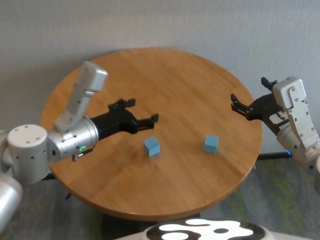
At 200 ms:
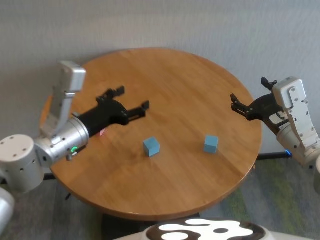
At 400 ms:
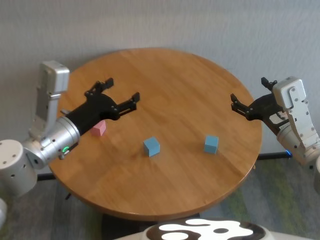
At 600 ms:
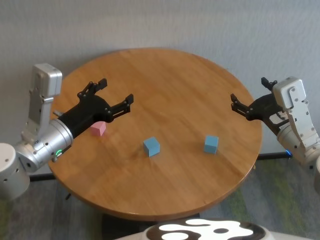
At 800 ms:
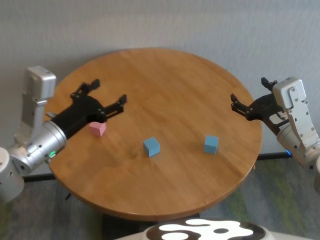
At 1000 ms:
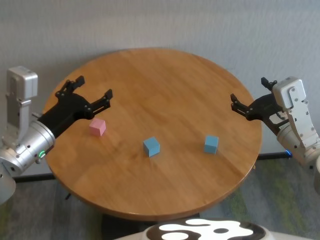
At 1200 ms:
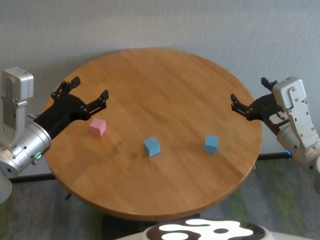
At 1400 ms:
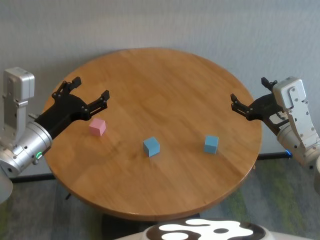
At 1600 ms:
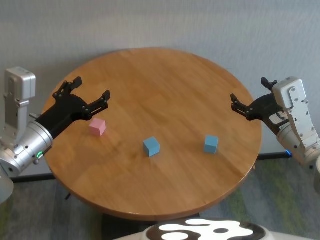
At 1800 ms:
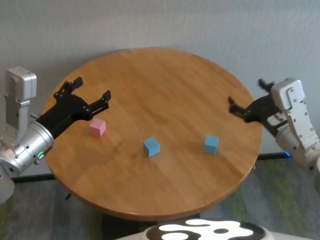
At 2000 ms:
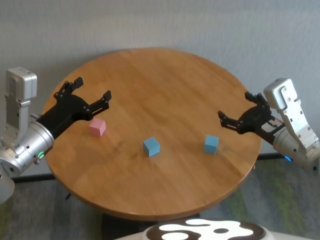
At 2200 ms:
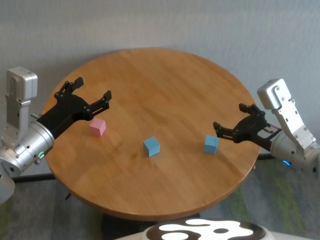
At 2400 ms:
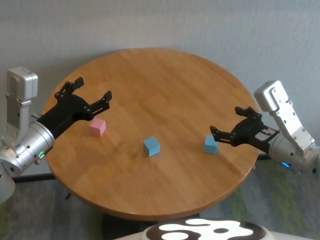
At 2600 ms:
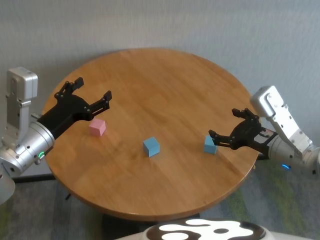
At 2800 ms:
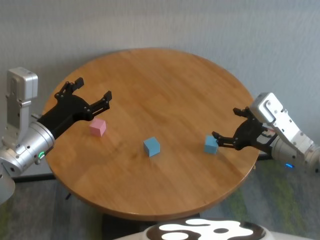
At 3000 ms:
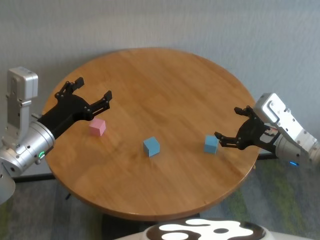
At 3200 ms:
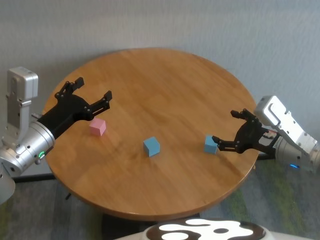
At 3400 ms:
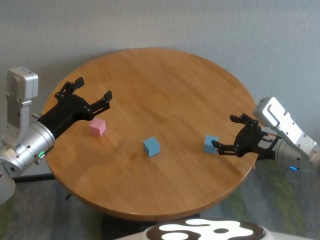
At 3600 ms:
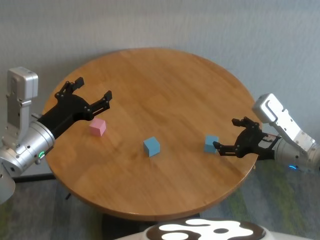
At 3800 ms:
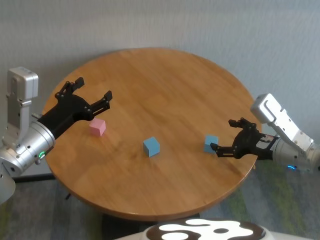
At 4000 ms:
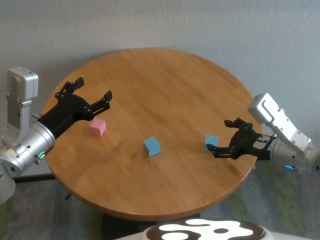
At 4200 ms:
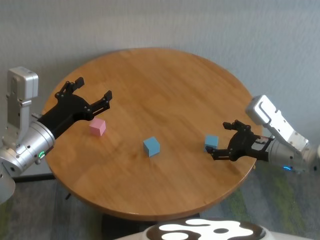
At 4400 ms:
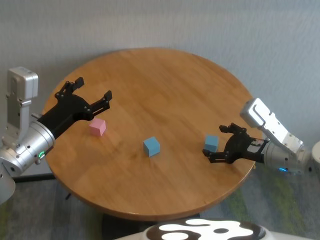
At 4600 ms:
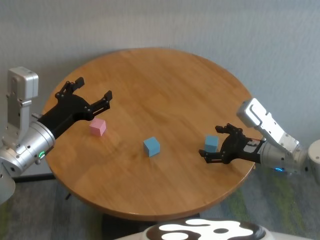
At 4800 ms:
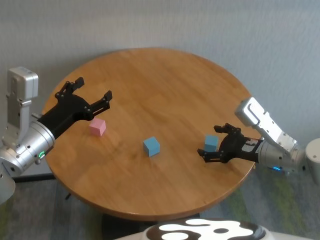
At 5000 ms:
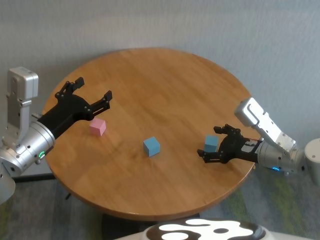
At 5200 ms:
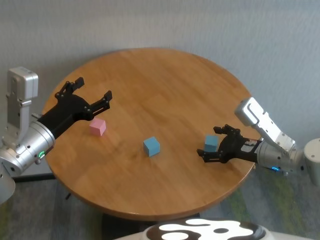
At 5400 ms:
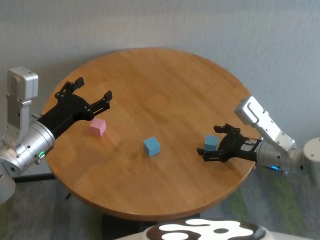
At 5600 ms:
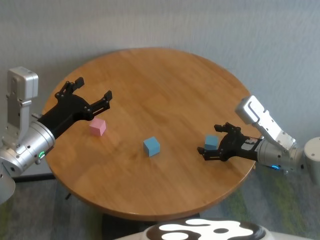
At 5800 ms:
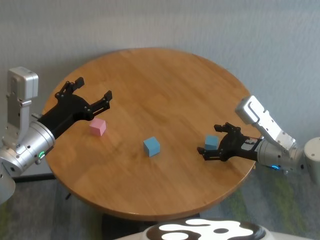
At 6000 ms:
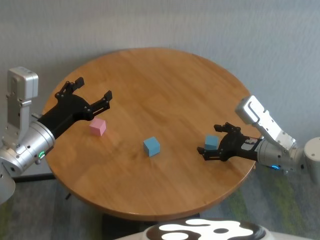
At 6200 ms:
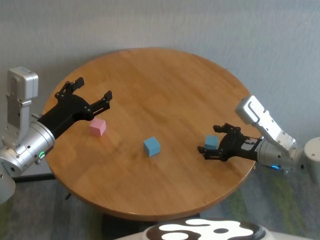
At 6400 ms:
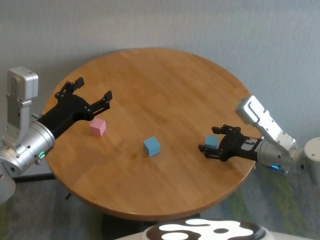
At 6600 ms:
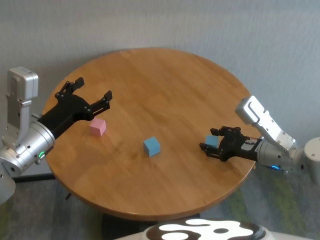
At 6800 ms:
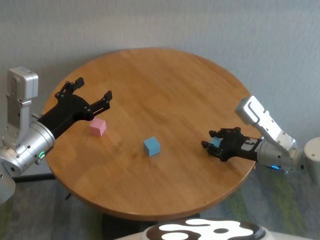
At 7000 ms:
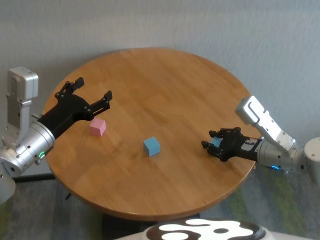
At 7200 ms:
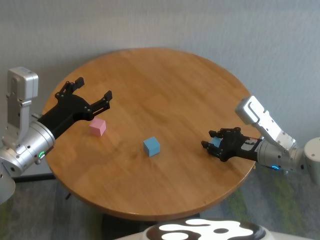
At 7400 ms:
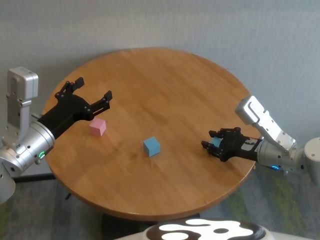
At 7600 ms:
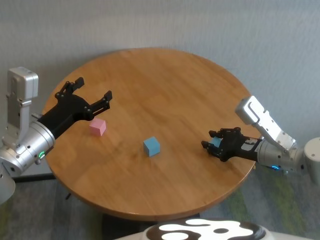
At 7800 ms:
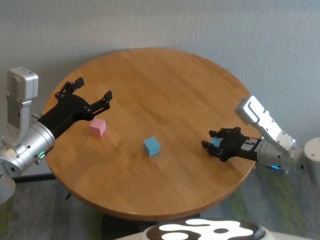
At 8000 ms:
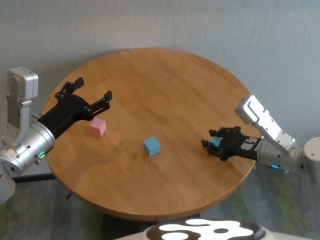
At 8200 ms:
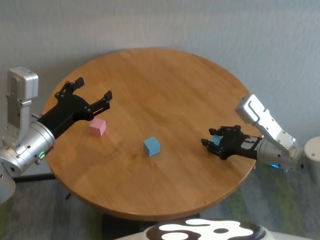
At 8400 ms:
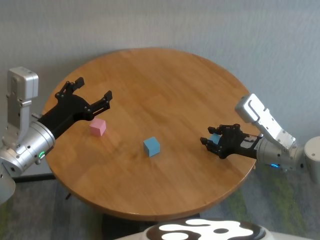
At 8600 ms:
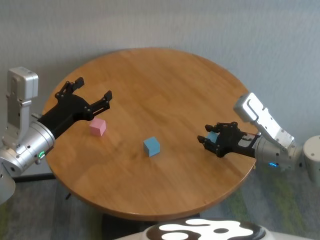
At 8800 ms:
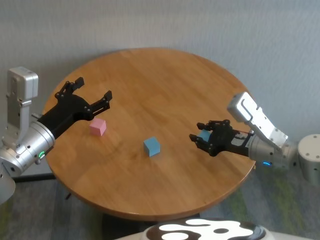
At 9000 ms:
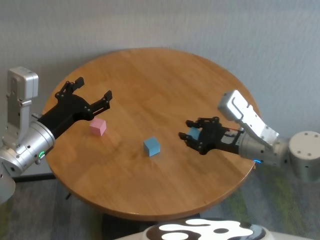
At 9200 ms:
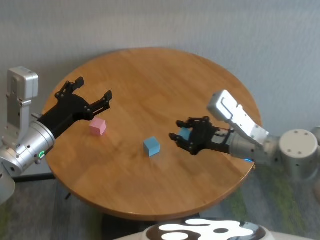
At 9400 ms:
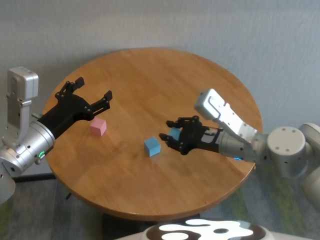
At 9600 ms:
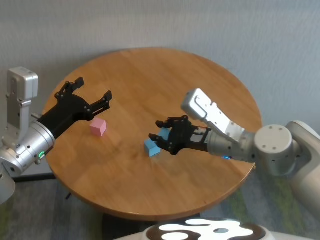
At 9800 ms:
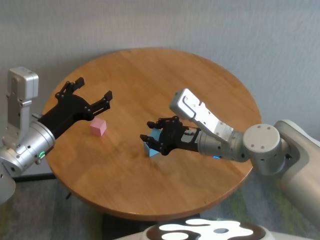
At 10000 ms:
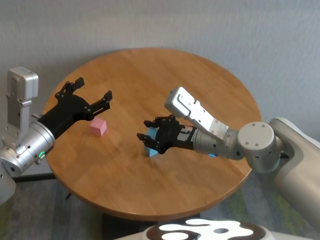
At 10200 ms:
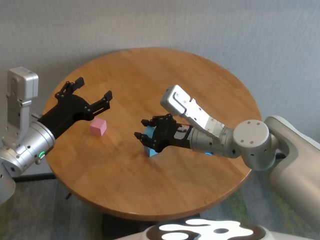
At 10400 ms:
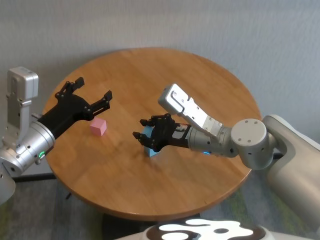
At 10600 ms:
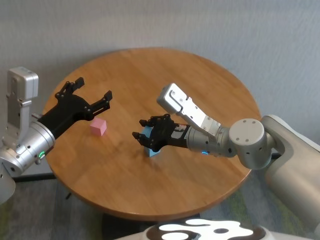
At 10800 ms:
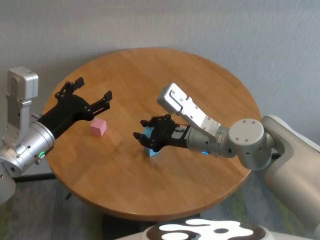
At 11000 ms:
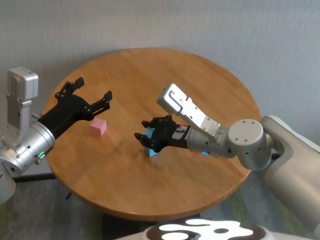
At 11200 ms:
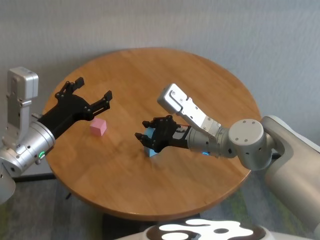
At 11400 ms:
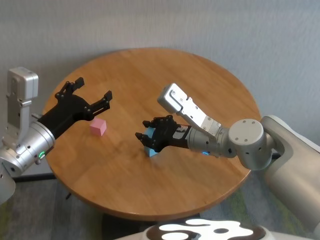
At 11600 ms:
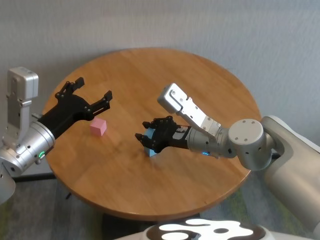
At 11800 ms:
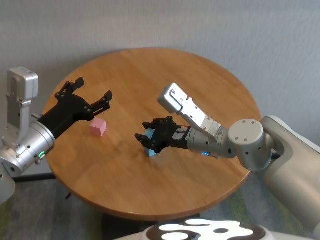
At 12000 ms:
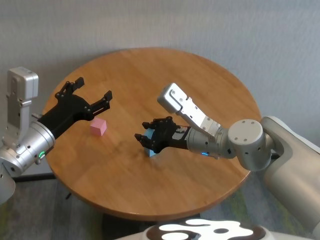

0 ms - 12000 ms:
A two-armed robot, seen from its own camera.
Task of the whole recording: stack building blocks on the table.
Step, 0 ms - 7800 ms: Grasp the blue building block with right gripper.

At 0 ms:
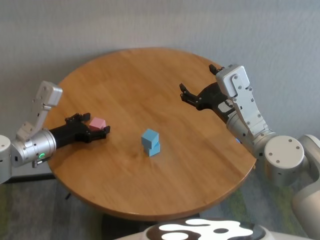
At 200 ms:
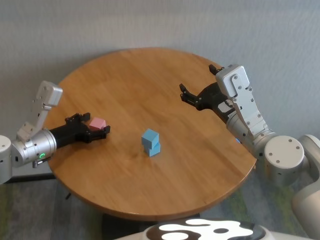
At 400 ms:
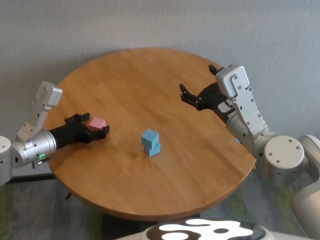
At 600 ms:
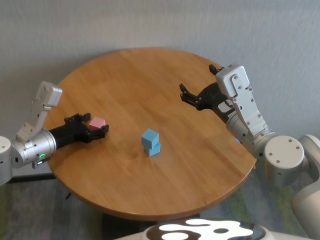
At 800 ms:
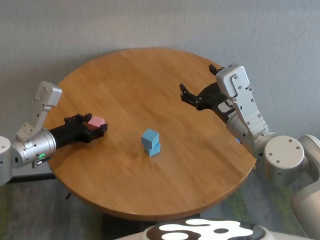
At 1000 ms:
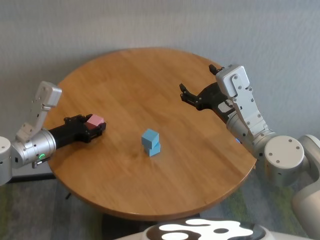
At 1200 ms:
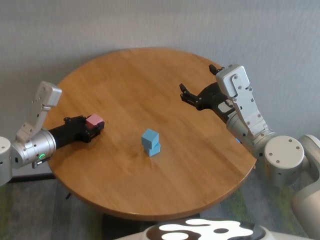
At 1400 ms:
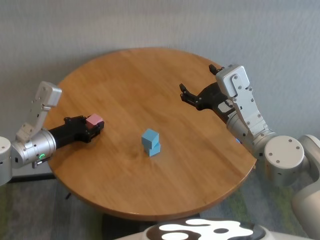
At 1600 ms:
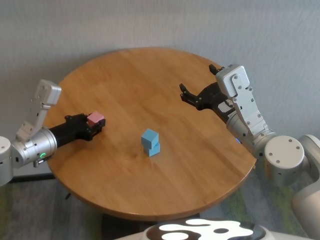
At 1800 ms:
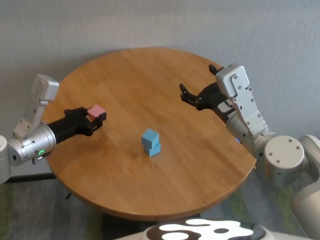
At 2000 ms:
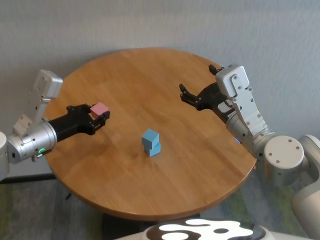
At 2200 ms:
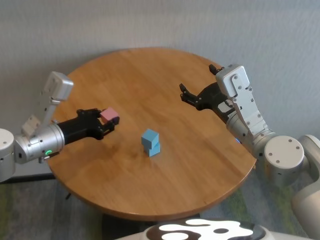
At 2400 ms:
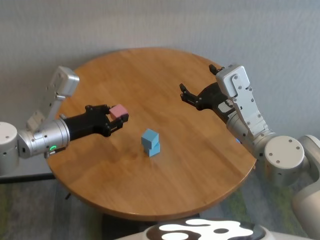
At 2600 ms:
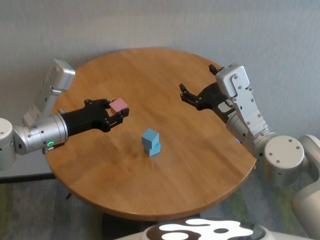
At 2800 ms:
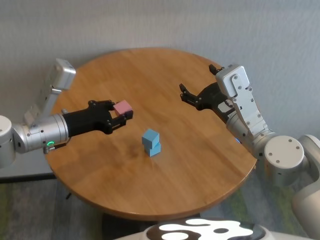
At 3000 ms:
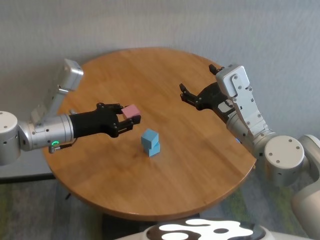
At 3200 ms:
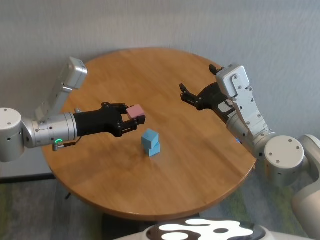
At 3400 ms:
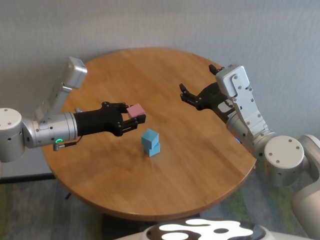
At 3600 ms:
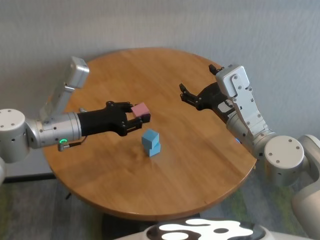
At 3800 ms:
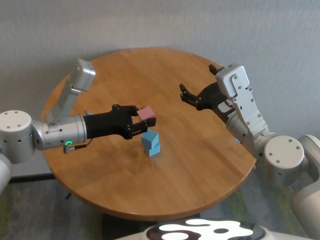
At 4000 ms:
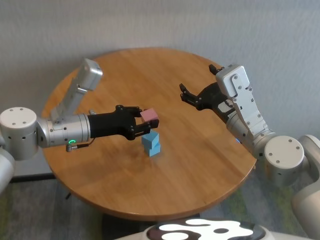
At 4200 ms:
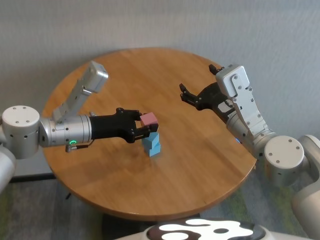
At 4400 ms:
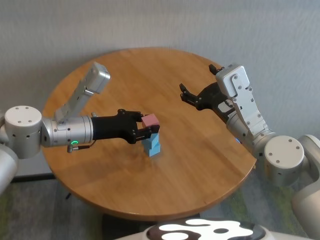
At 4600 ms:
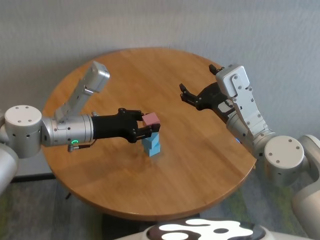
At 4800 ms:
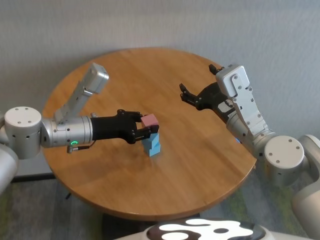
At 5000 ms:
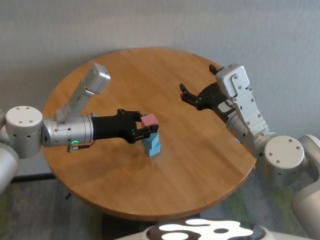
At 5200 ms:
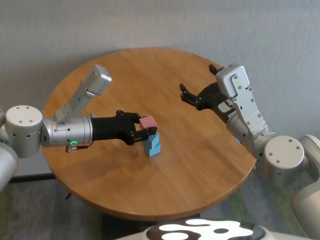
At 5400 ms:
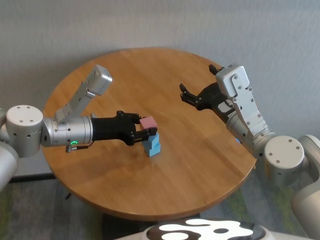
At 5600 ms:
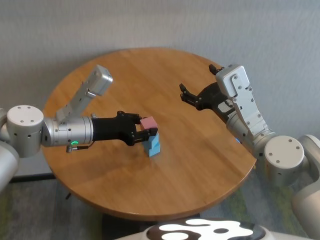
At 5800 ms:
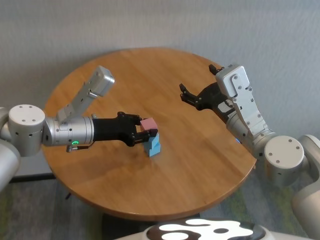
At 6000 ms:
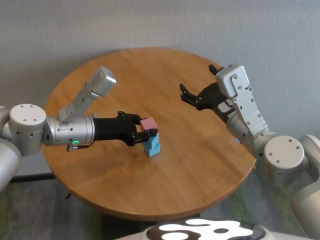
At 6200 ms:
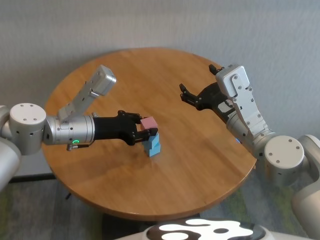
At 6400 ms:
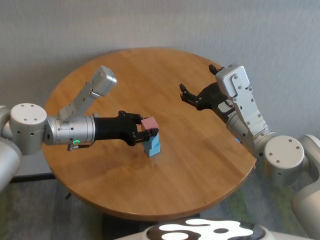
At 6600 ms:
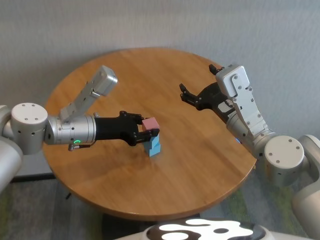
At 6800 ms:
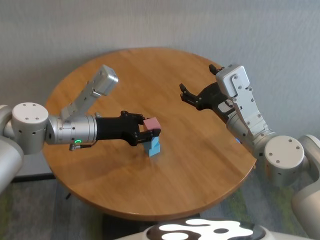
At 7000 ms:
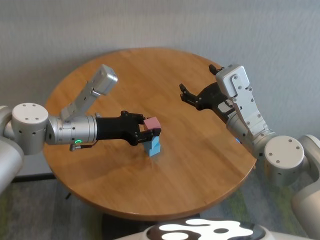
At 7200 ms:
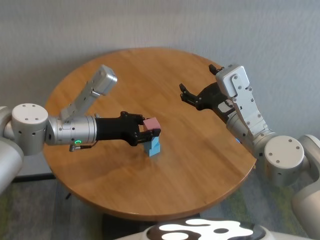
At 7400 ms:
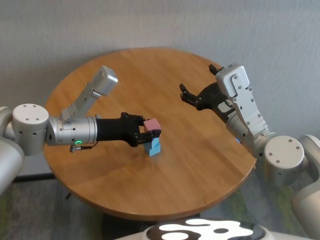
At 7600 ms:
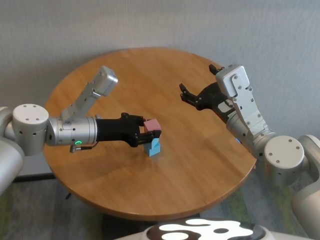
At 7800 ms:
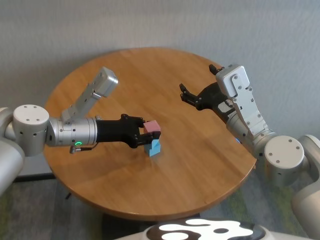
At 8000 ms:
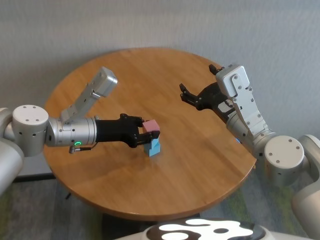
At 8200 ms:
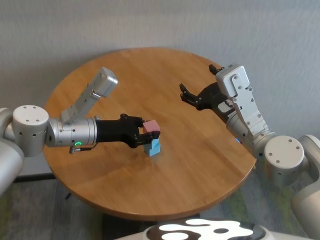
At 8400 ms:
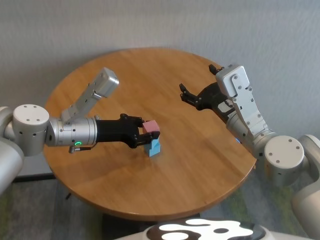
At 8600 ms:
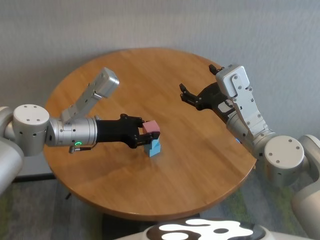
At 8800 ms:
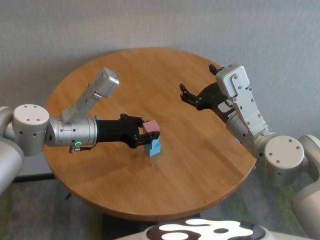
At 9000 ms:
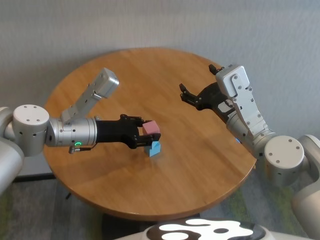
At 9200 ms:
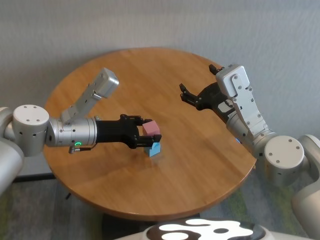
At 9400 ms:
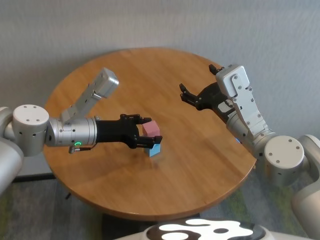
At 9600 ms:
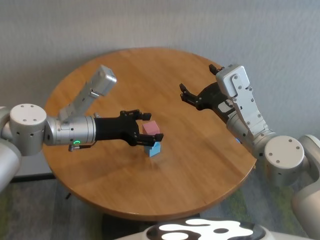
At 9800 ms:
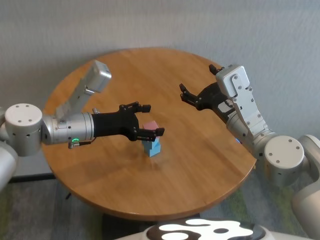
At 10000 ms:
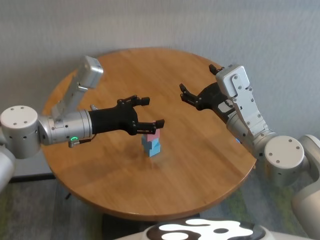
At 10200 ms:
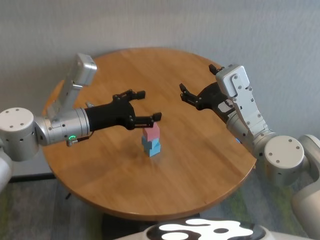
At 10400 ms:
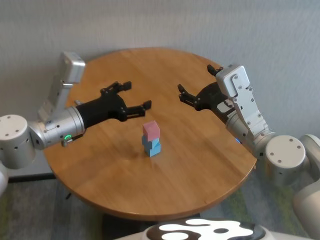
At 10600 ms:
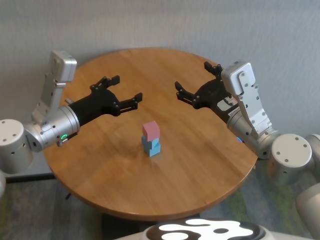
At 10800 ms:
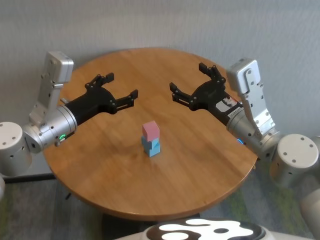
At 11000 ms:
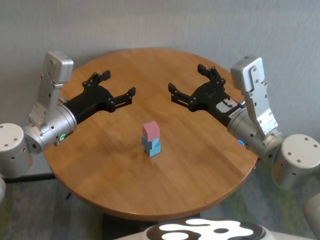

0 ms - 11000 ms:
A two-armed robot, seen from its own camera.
Task of the whole recording: stack building blocks on the table.
Step, 1600 ms - 9600 ms: Place the pink building block on the blue building blocks with left gripper.
